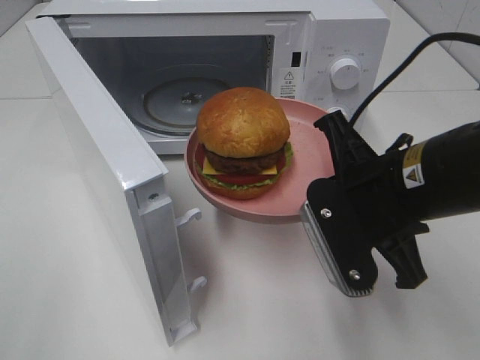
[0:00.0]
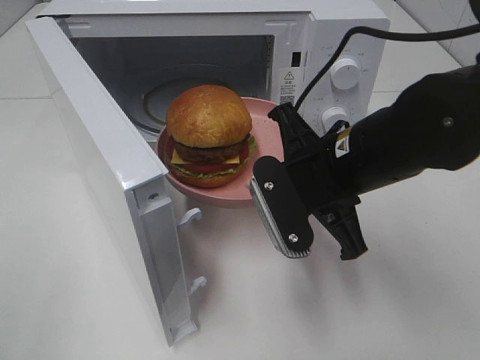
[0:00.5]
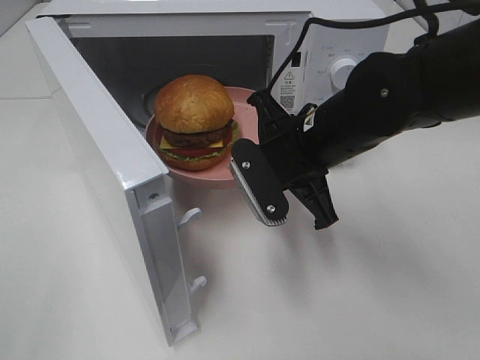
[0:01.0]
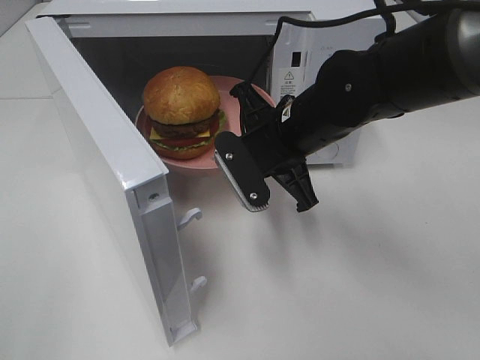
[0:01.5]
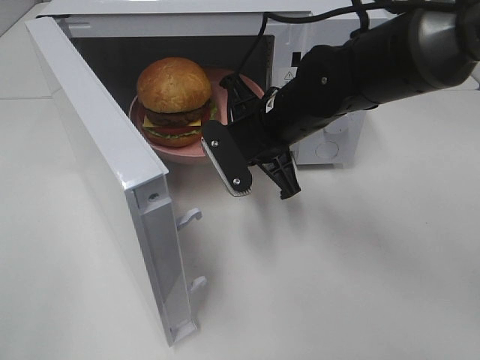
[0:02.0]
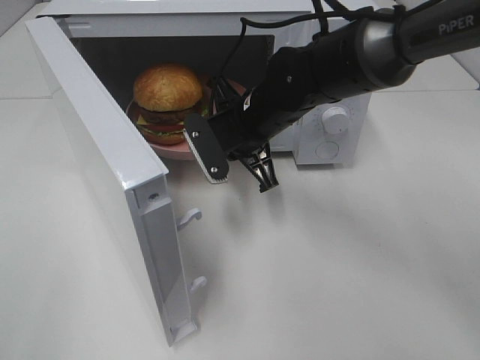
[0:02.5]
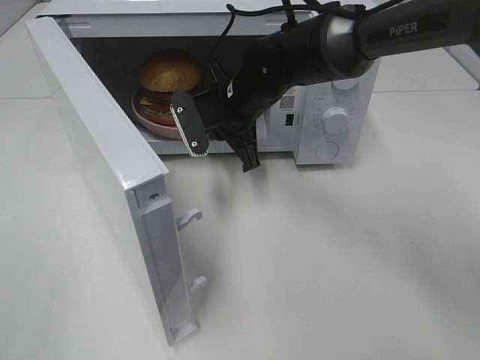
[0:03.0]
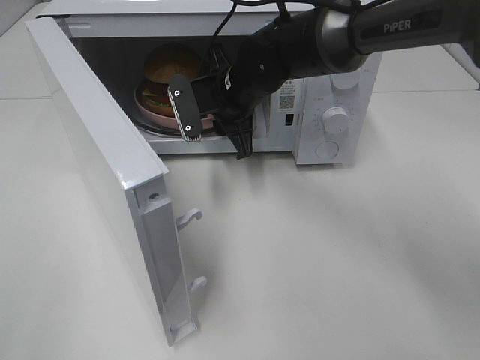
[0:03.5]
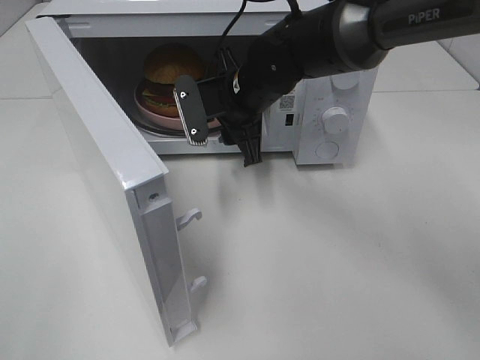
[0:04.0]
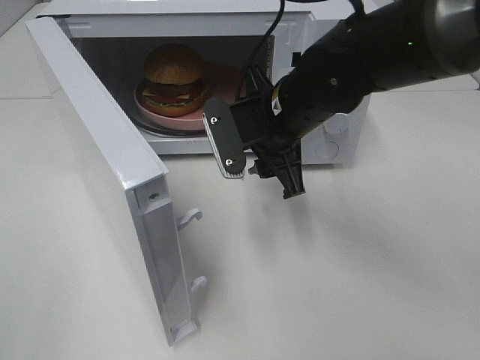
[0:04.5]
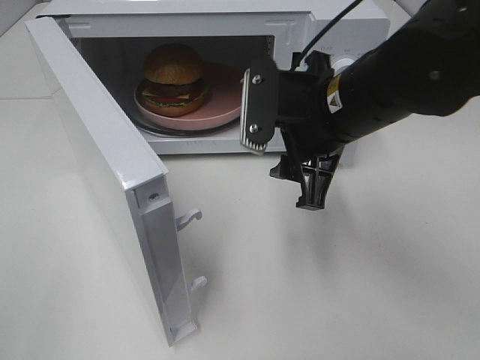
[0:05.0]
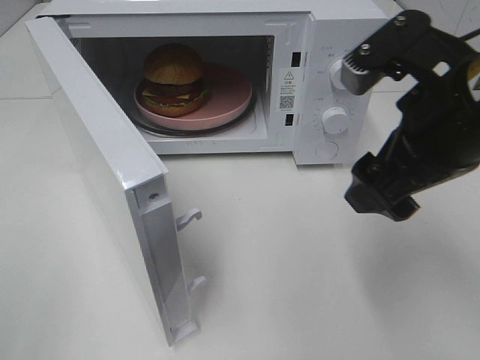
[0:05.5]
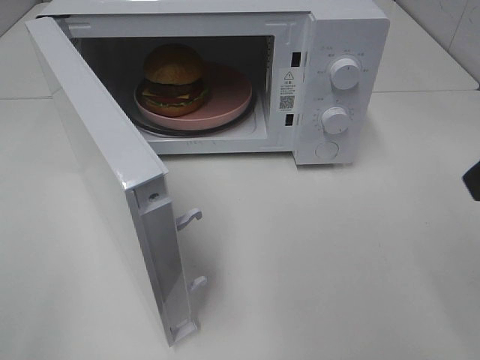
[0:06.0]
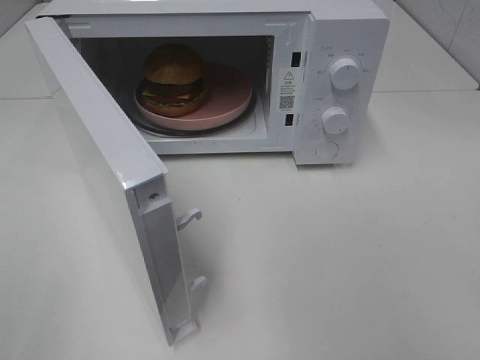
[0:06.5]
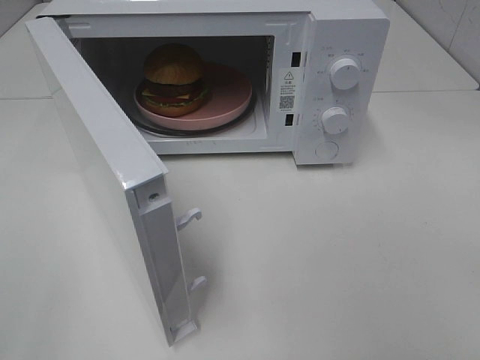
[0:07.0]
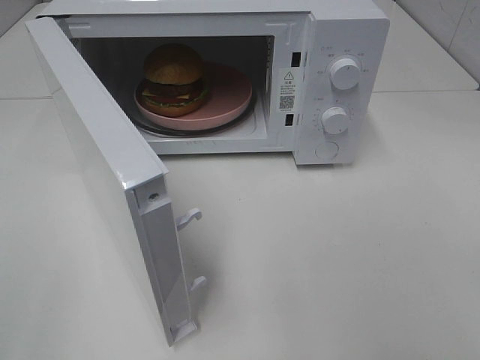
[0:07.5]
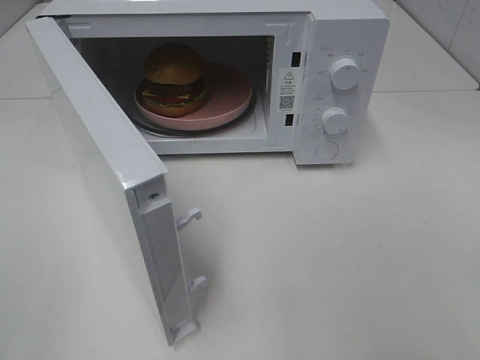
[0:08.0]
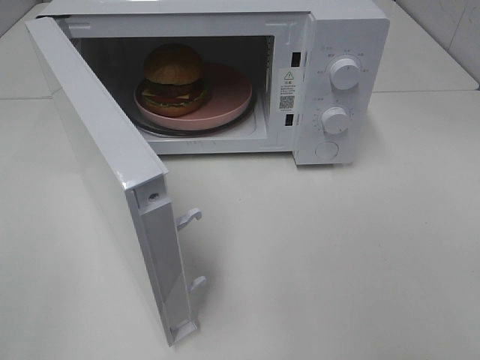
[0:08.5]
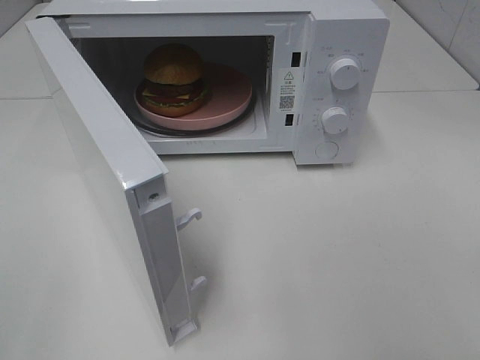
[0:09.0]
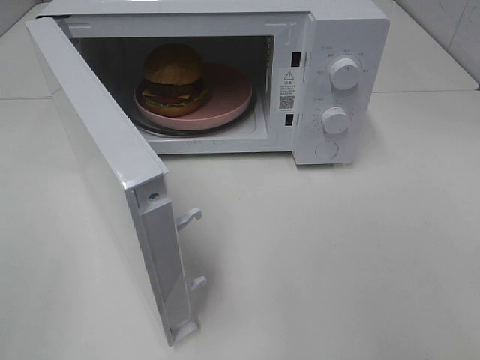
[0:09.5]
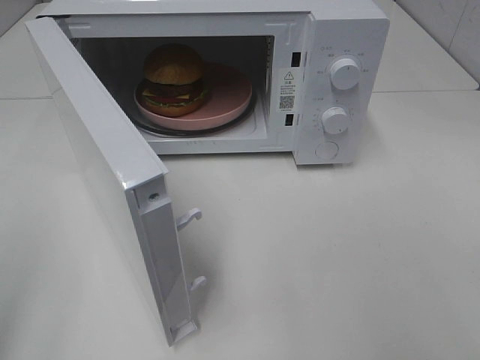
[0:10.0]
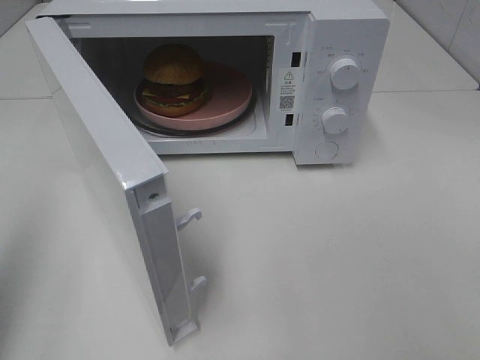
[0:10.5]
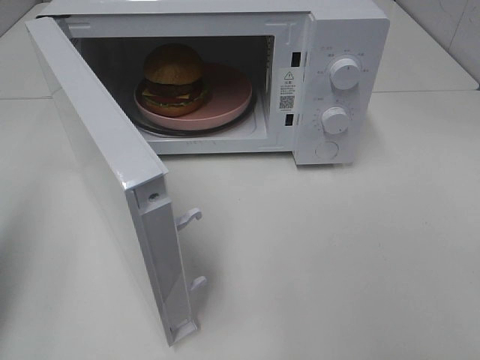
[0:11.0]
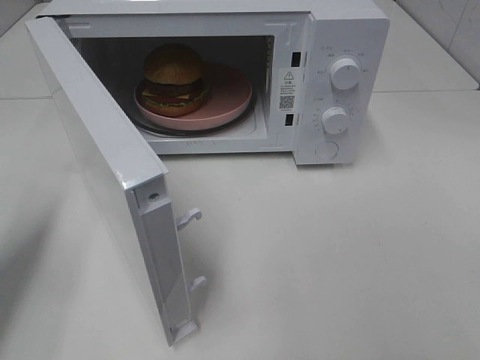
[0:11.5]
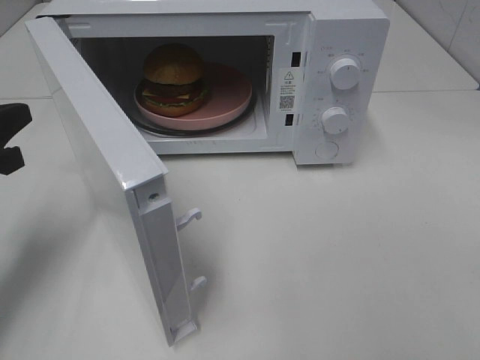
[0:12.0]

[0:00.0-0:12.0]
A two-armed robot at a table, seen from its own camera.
Task of the whole recording: Heat the burger.
Step, 0:00.0 to 0:03.0: Right hand: place the plate in the microwave.
0:00.0 to 0:02.0: The right gripper goes approximately 15 cm forward and to the left.
0:02.0 to 0:04.0: The right gripper moves forward, approximately 5 cm, and opens.
0:04.0 to 0:06.0: The right gripper is displaced backward, to the right and upward by some 35 cm.
0:10.0 to 0:12.0: The left gripper heads forward and downward, covering about 25 cm.

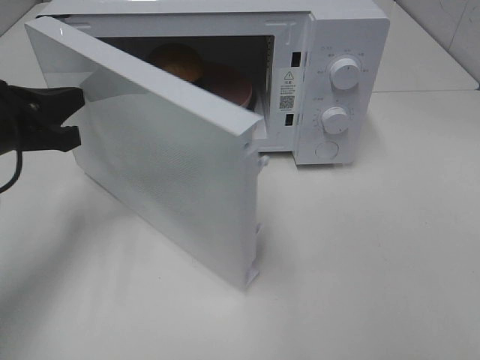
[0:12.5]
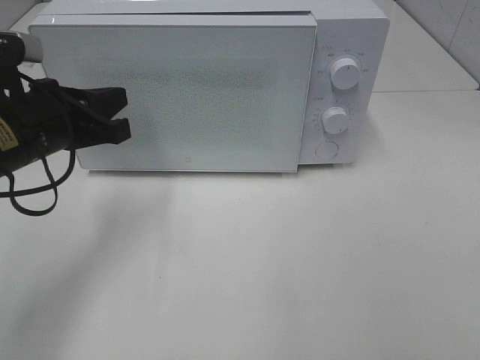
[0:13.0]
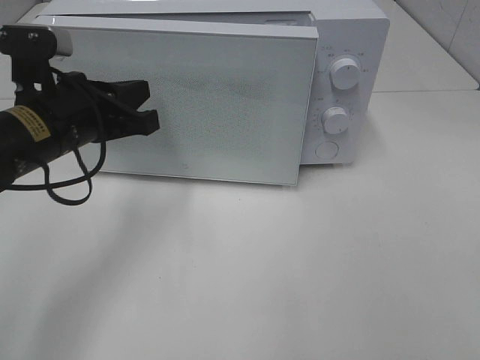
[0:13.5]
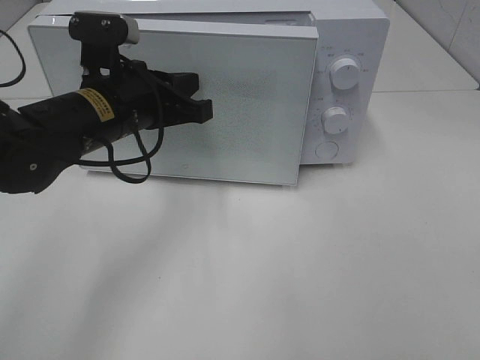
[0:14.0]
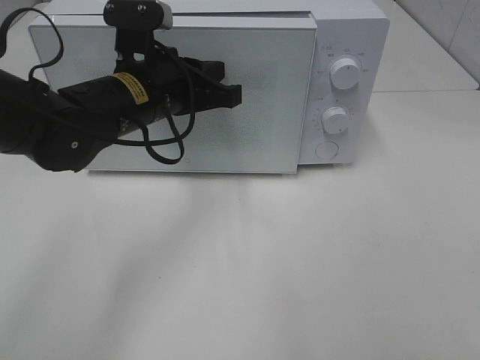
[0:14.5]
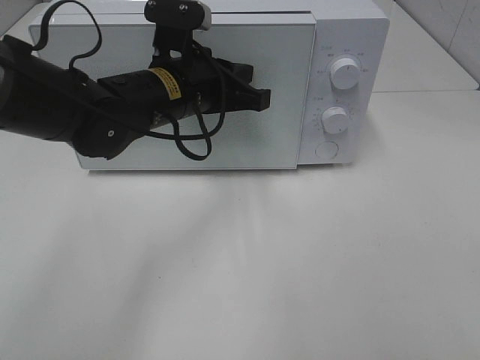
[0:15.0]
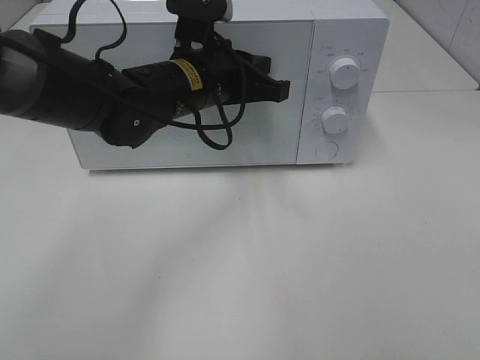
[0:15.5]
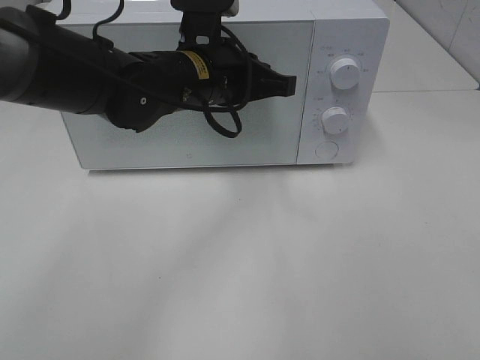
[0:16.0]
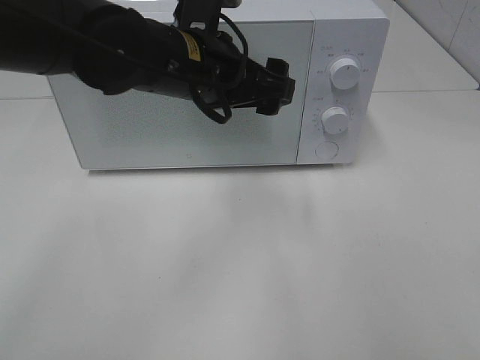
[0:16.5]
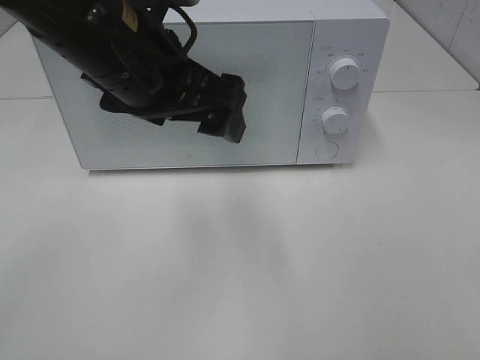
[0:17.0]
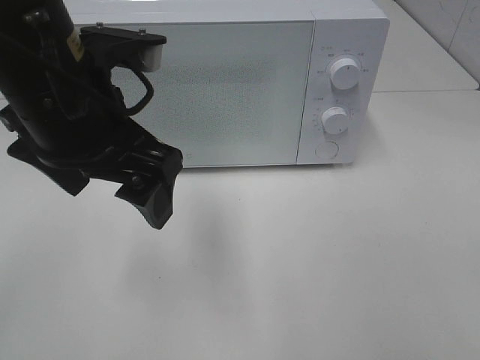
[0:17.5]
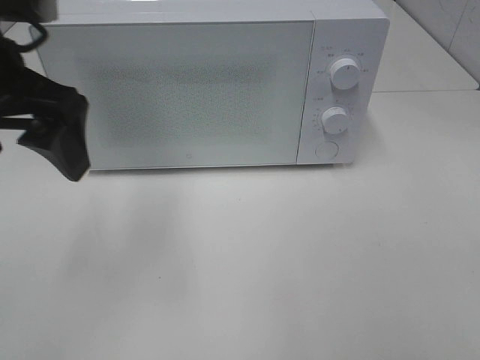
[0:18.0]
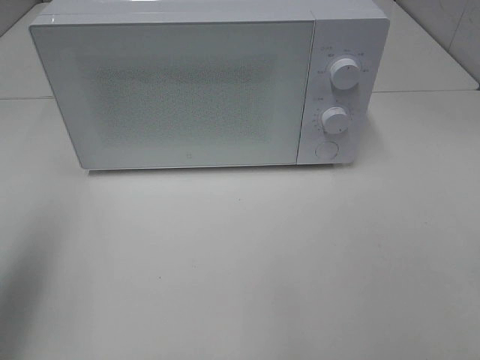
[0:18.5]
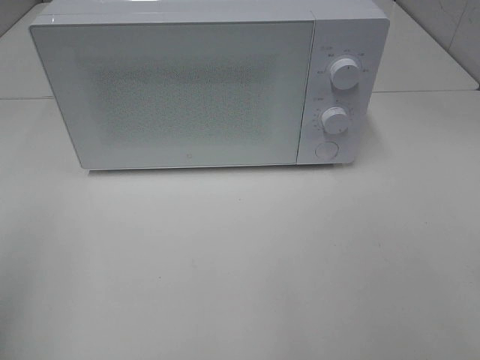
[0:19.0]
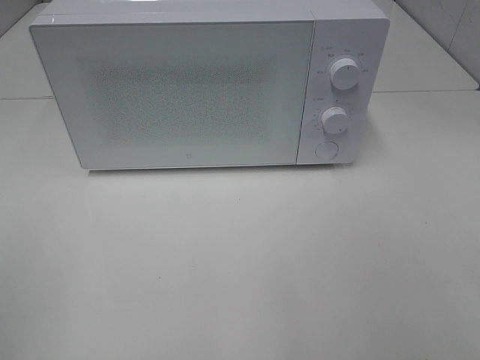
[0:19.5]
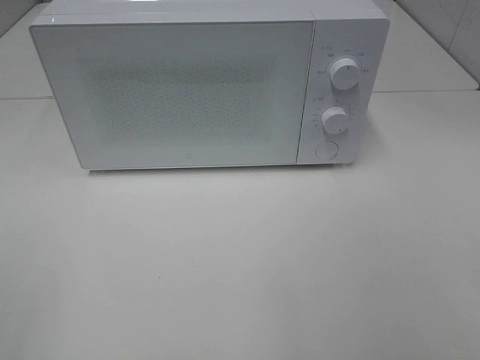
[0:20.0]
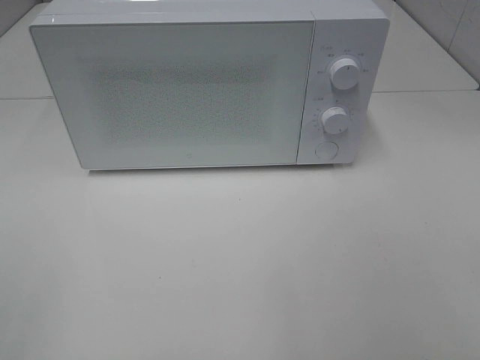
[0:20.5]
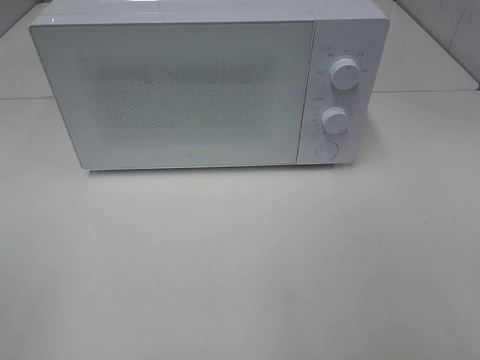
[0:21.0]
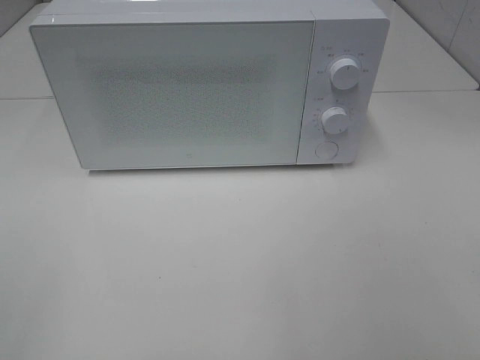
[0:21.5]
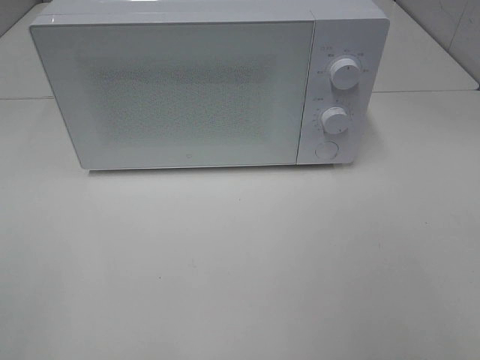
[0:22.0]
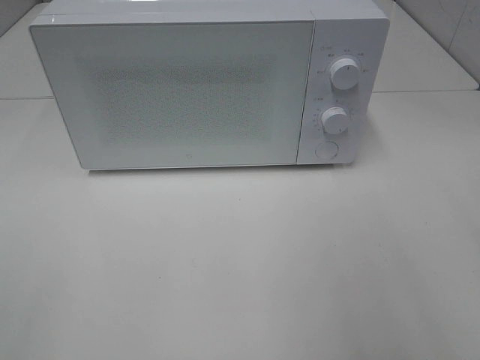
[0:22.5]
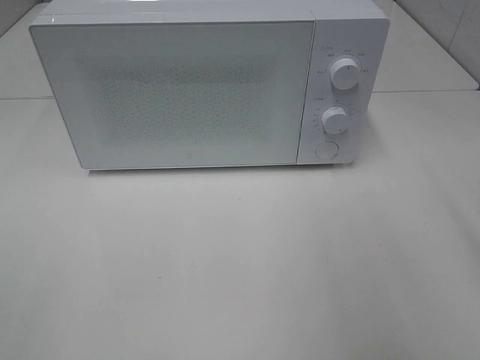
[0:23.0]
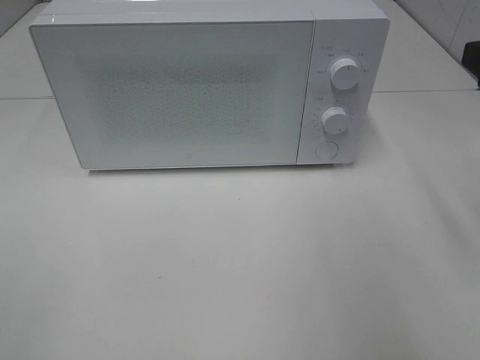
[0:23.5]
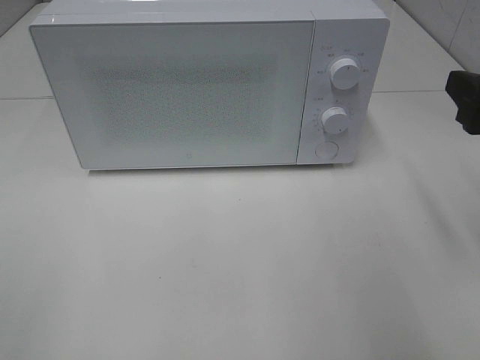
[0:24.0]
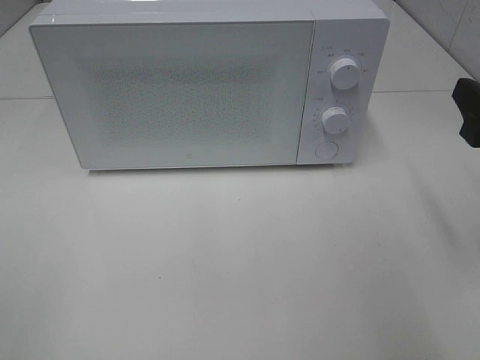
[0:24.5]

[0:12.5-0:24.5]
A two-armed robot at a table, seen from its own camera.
Task of the whole recording: Heat the burger.
Step, 0:12.5 to 0:15.5: Left hand: close the microwave door.
0:12.5 to 0:14.5: The left gripper is displaced to the right by roughly 15 cm.
0:14.5 to 0:16.5: The left gripper heads to the right, covering some 5 cm, and opens.
0:16.5 to 0:18.5: The left gripper moves to the left and backward, some 30 cm.
0:18.5 to 0:20.5: The left gripper goes about 20 cm backward.
0:22.5 to 0:24.5: The right gripper travels downward and forward by about 10 cm.

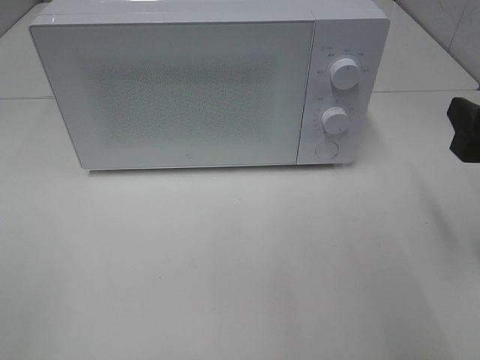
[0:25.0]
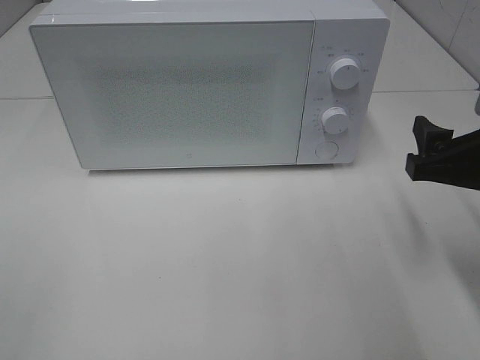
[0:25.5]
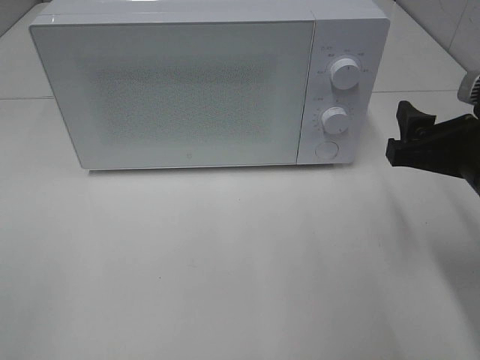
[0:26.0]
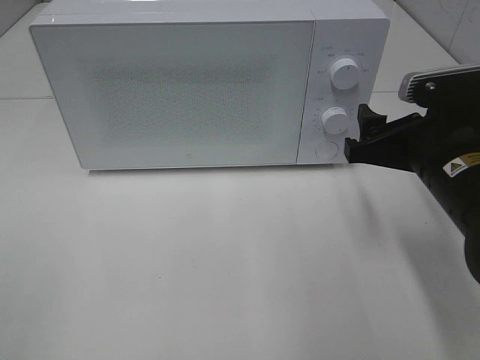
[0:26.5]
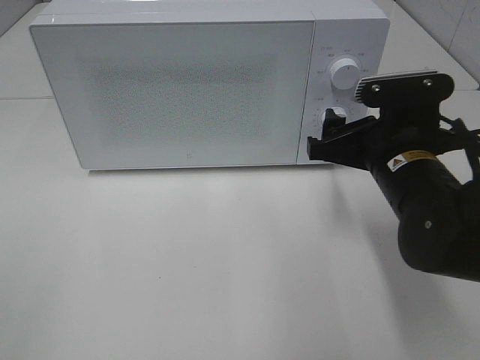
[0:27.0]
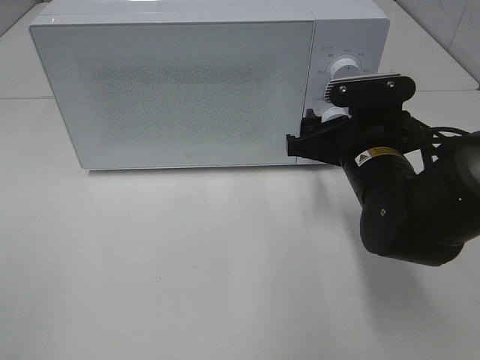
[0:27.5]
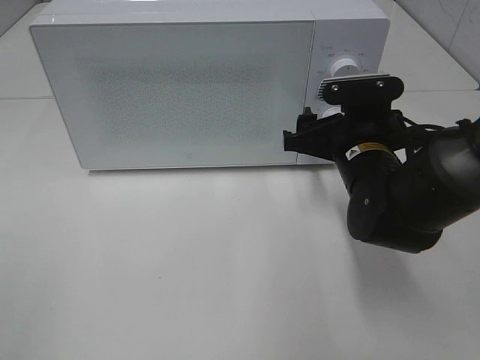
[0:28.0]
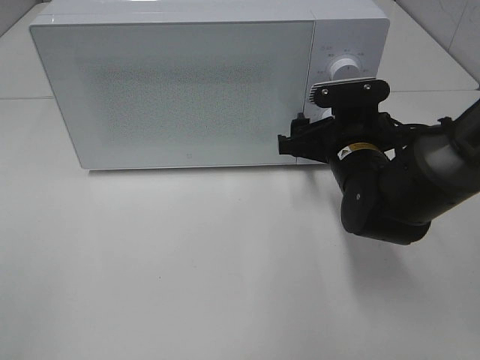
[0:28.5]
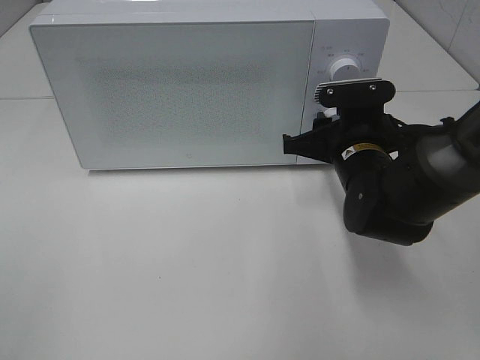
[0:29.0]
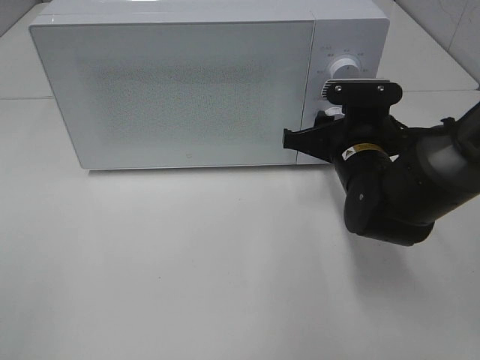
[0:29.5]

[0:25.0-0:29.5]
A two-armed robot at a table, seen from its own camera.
Task of the whole recording: Heat the burger.
0:25.0 to 0:27.0: The right gripper heads to the left and forward, covering about 15 cm.
0:27.0 to 0:29.5: The right gripper shifts approximately 5 cm forward, and closes up.
